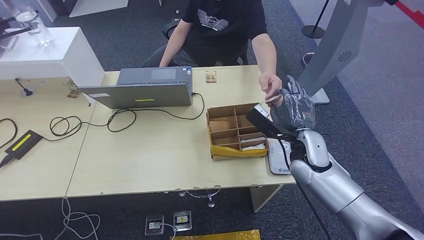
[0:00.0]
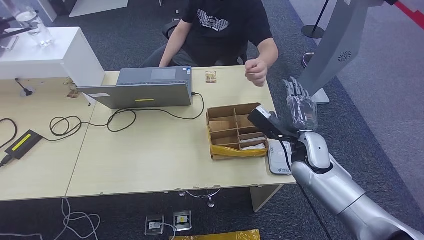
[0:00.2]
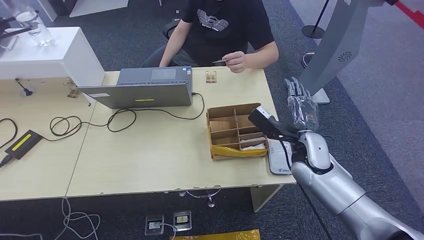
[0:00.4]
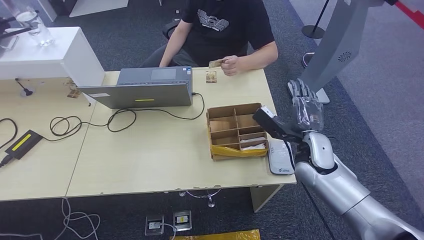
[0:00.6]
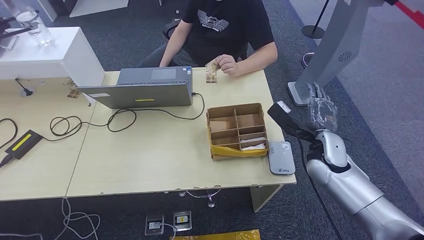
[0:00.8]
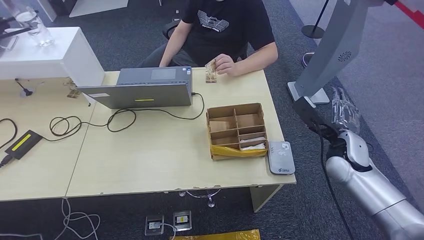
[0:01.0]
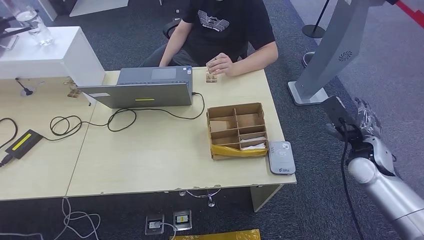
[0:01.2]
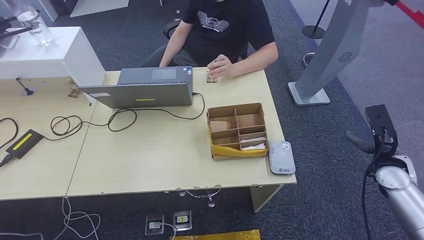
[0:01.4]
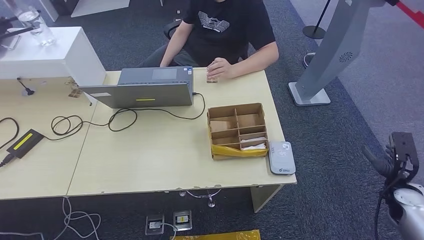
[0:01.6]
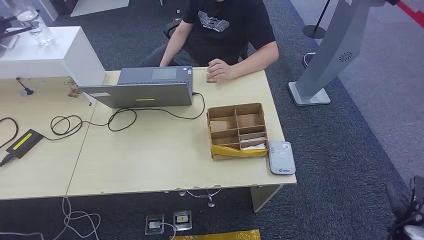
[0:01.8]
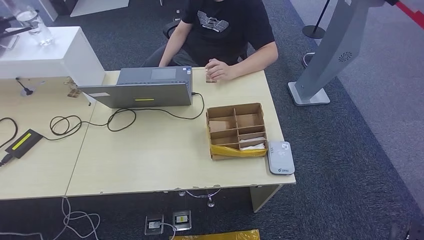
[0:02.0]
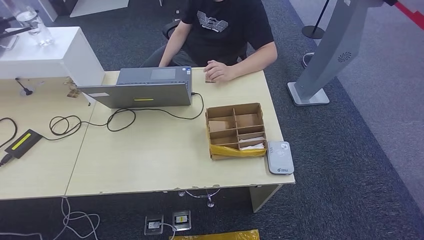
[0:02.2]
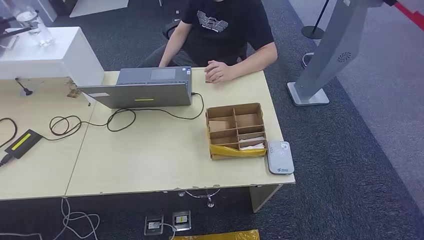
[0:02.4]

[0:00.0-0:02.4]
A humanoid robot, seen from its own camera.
Step, 0:00.0 to 0:02.2: Hand the room key to the person.
0:00.0 to 0:01.2: The right hand moves to the right, about 15 cm.
0:01.2 to 0:02.4: The right hand goes roughly 40 cm downward and backward.

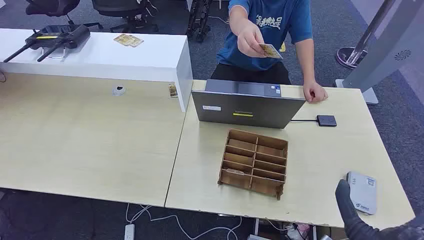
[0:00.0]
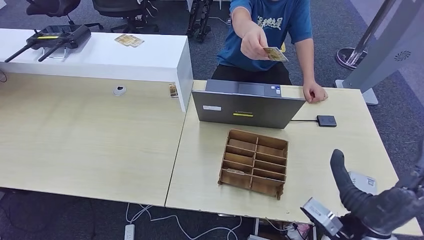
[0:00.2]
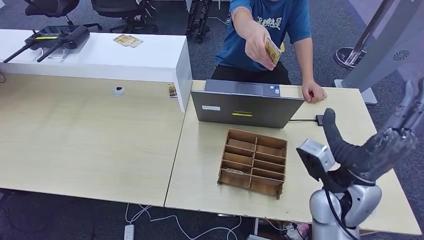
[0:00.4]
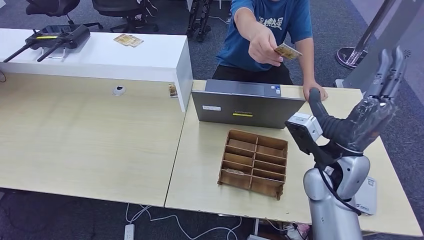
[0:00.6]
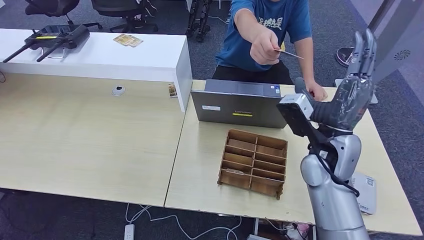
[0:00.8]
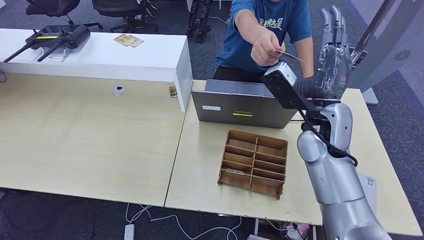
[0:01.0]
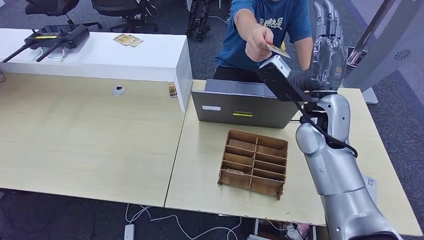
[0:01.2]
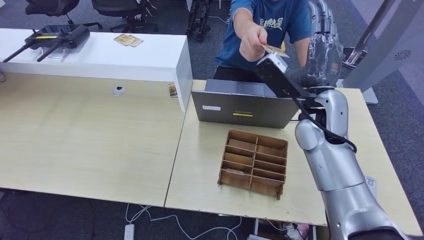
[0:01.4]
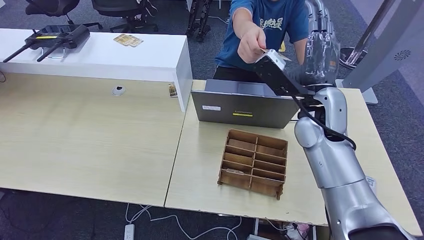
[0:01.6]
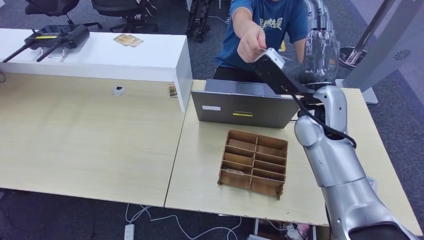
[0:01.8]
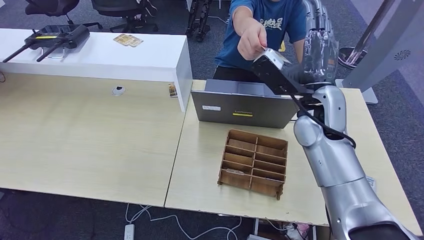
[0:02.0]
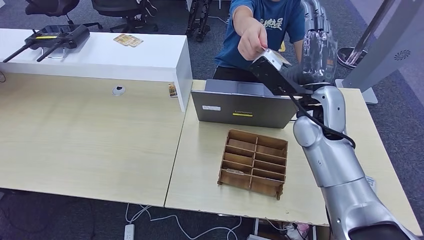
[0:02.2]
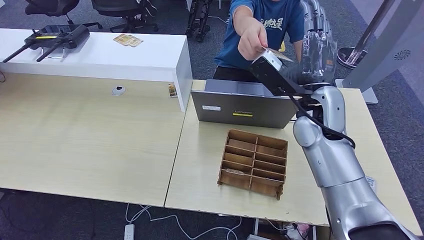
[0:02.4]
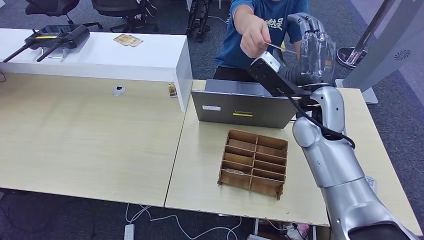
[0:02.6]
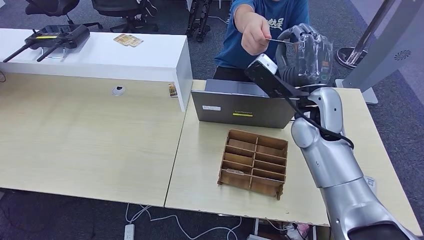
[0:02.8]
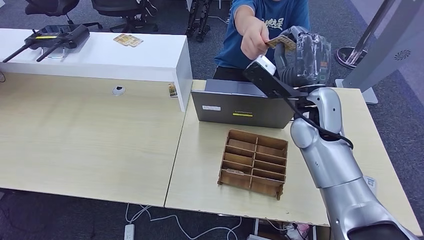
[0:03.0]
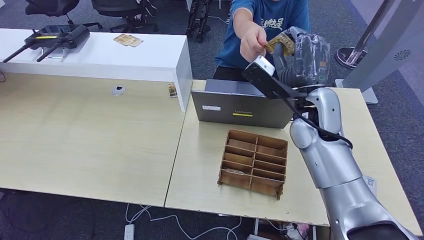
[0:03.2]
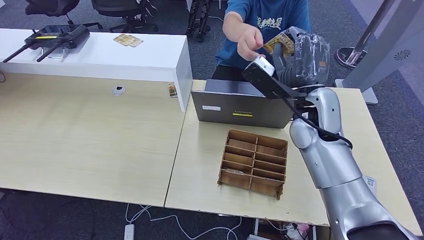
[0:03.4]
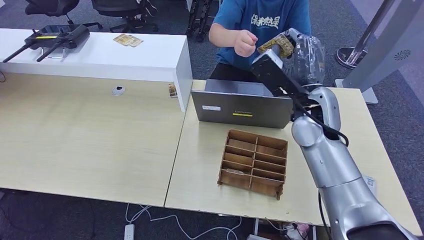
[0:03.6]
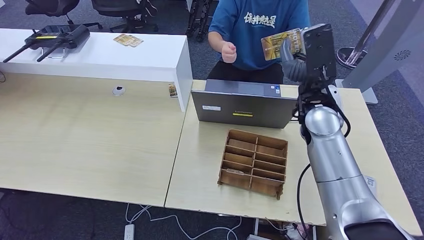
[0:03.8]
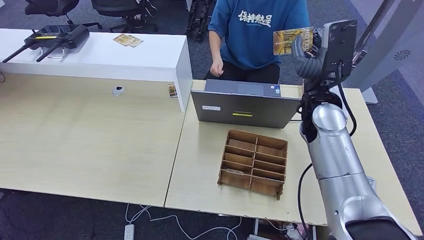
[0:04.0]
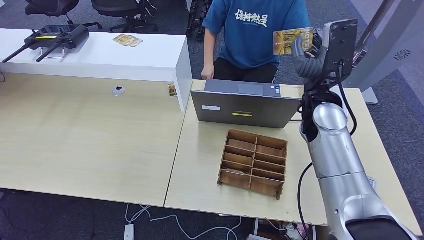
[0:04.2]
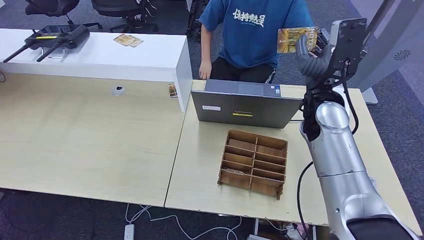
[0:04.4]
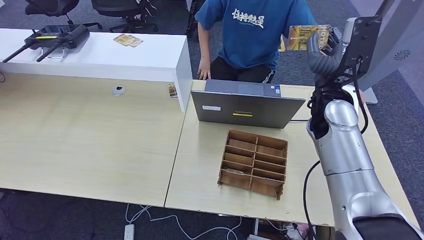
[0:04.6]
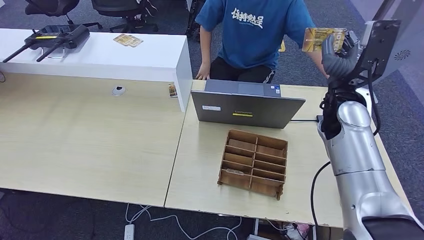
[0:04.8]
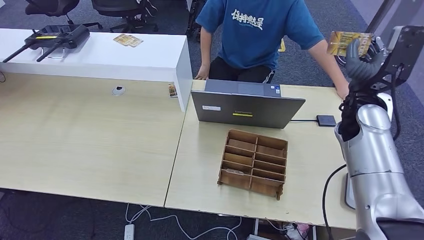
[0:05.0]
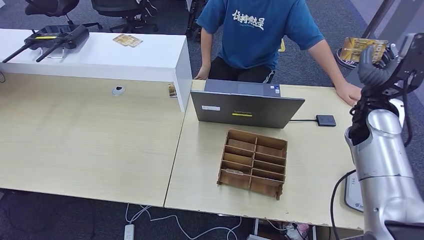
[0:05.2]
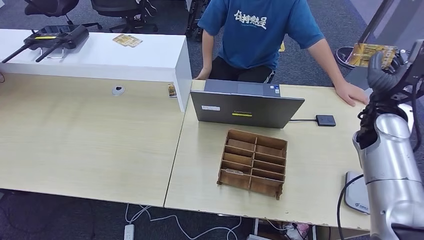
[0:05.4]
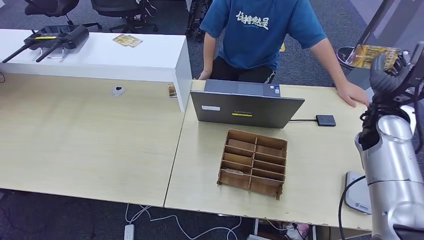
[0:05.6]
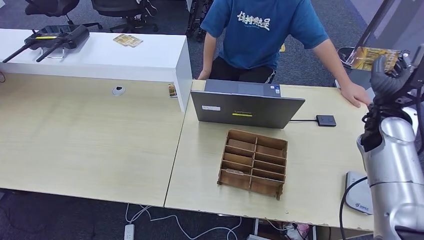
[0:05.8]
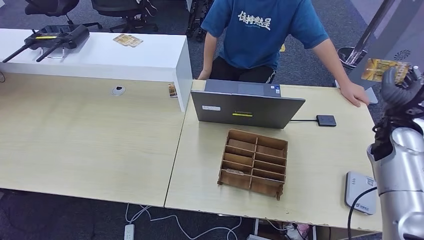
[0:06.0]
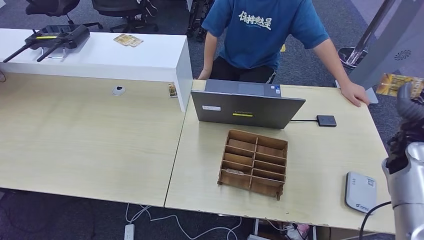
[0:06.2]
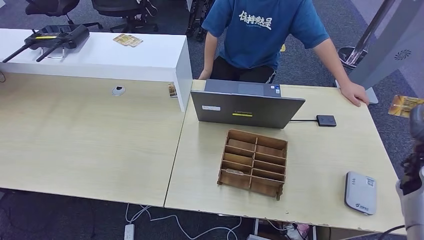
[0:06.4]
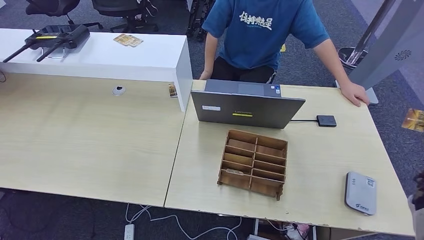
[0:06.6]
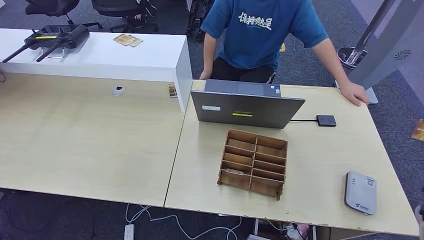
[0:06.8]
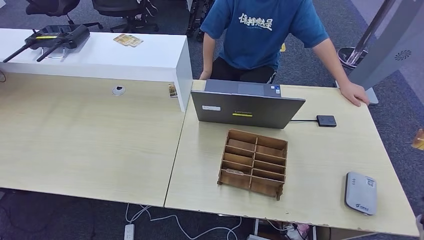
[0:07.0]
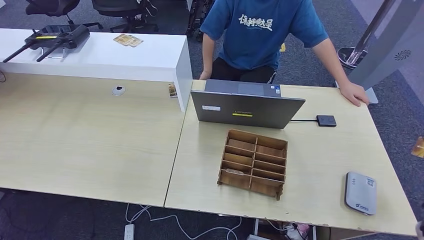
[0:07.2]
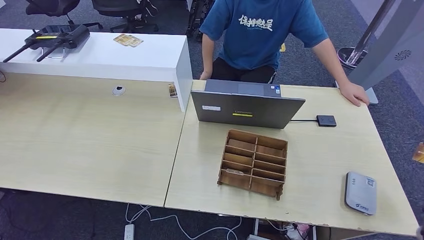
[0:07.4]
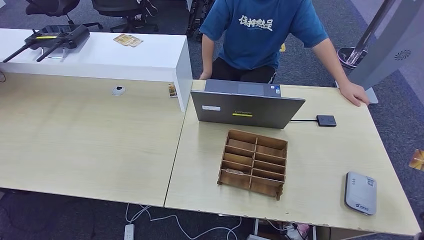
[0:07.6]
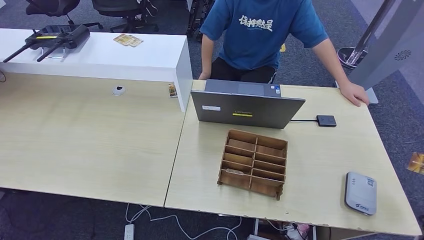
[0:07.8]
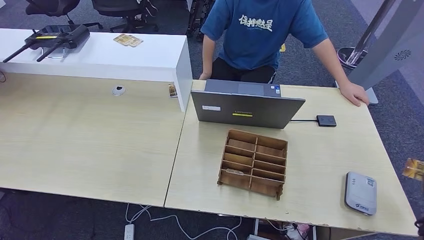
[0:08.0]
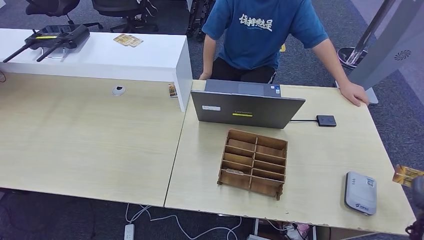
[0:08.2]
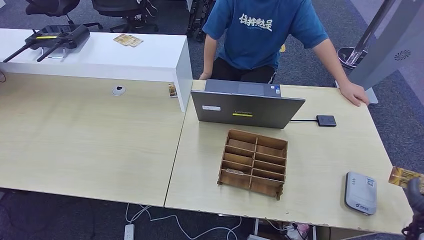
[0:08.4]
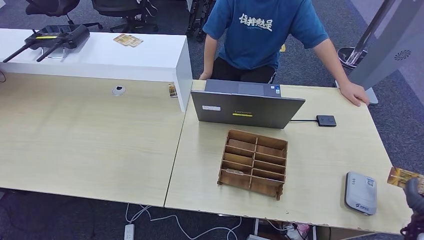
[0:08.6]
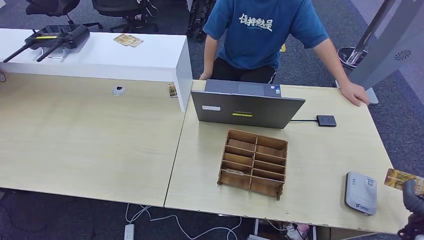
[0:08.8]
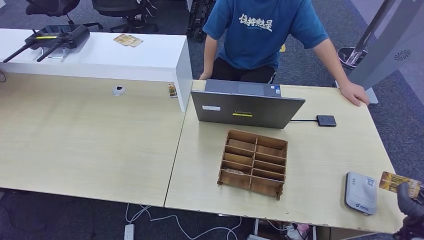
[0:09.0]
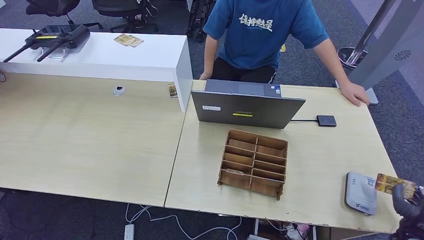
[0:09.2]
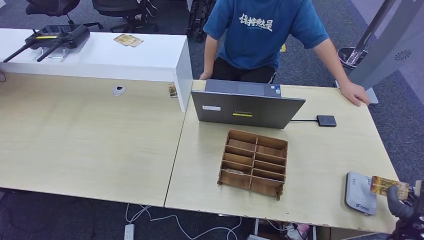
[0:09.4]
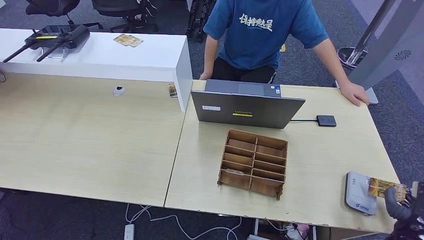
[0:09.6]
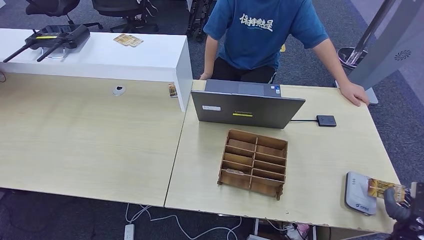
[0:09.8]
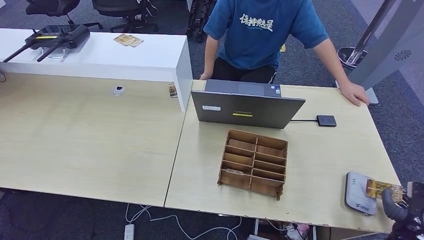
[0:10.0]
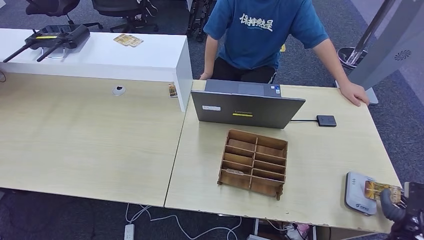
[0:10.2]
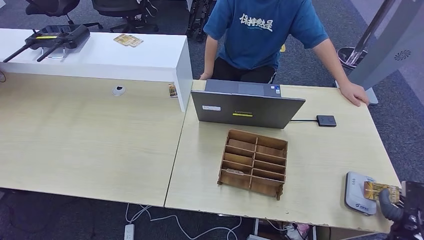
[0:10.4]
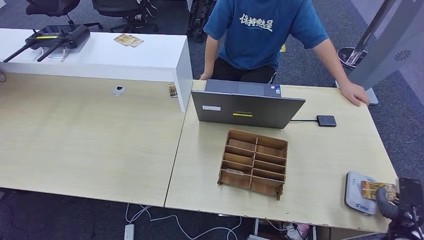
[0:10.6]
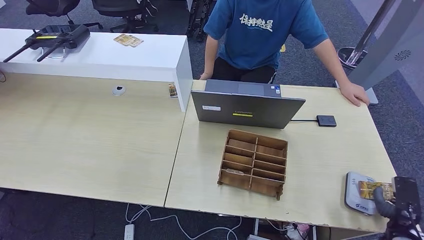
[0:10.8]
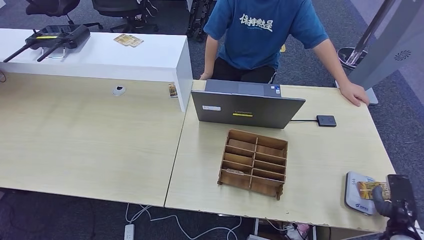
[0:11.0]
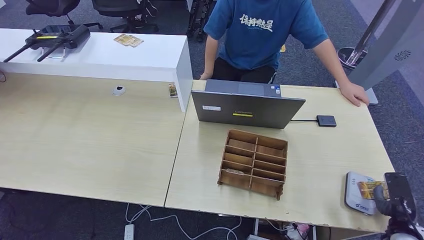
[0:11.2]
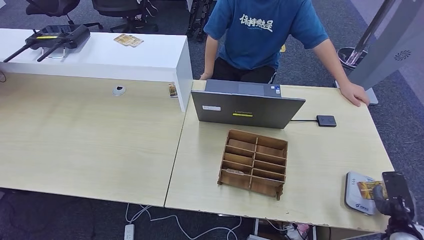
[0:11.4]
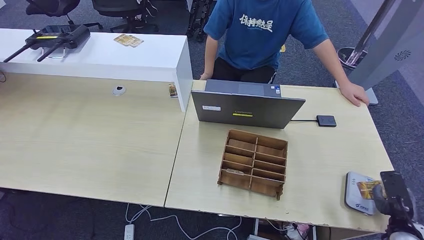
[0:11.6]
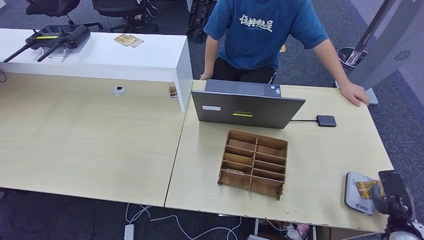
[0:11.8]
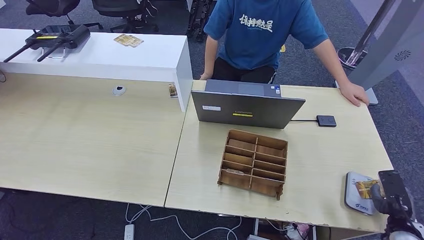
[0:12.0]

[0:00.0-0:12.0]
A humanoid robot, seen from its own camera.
Step, 0:00.0 to 0:03.2: Take the ID card from the person's hand.
Step, 0:03.4 to 0:11.2: Place the ID card on the card reader.
0:01.6 to 0:03.0: The two hands keep their place.
0:04.4 to 0:06.0: The right hand shifts approximately 20 cm to the right.
0:06.0 to 0:07.6: The right hand goes approximately 25 cm to the right, backward and downward.
0:07.6 to 0:09.0: The right hand travels downward by roughly 5 cm.
0:09.0 to 0:10.4: The hands make only small movements.
0:10.4 to 0:12.0: The hands make only small movements.

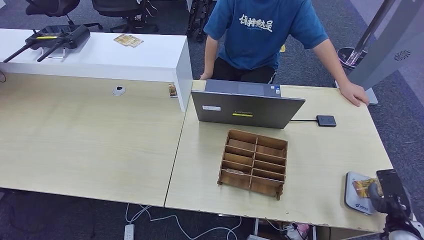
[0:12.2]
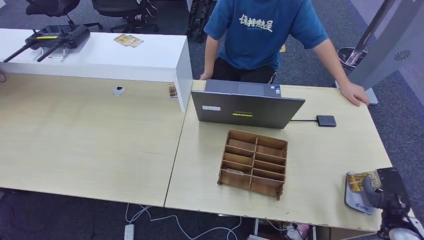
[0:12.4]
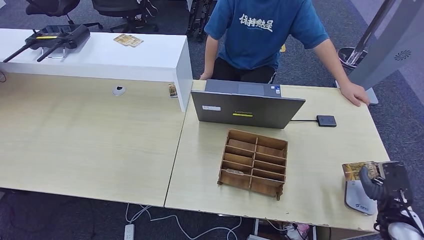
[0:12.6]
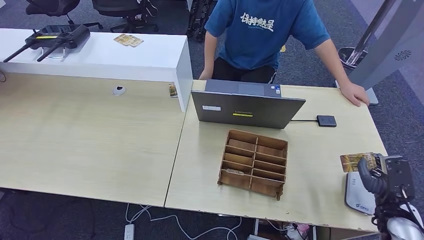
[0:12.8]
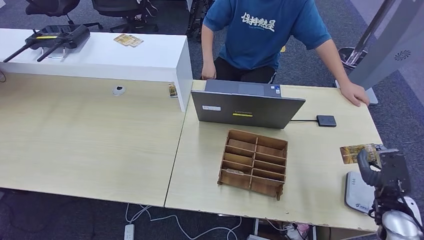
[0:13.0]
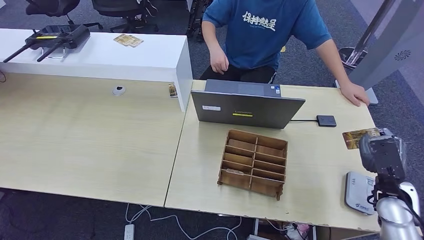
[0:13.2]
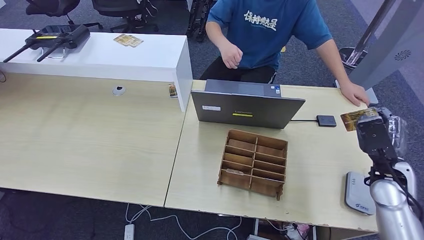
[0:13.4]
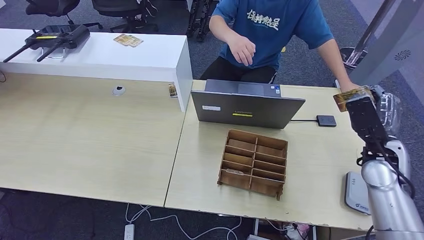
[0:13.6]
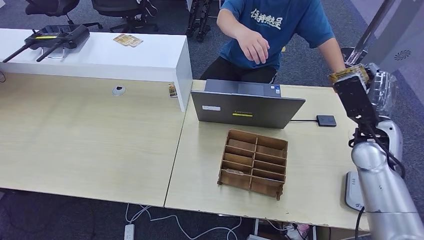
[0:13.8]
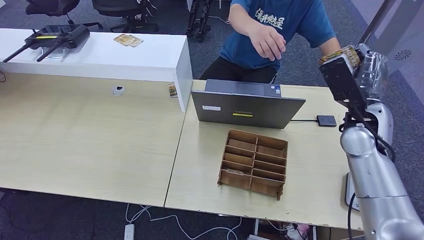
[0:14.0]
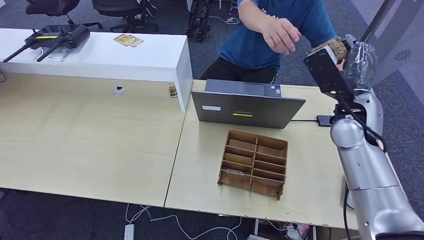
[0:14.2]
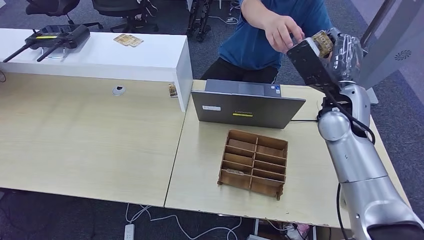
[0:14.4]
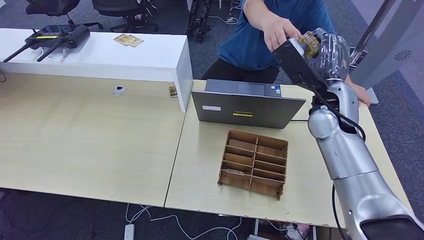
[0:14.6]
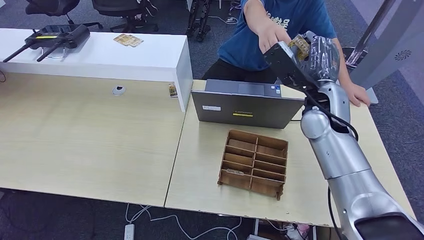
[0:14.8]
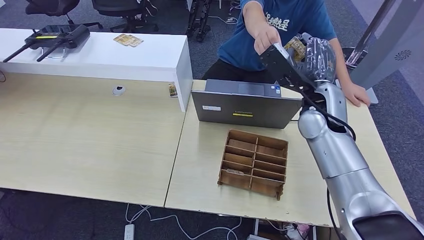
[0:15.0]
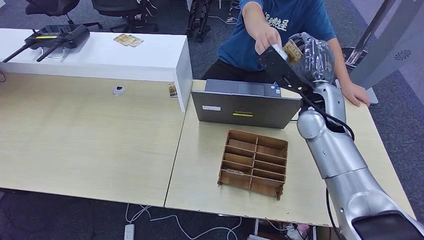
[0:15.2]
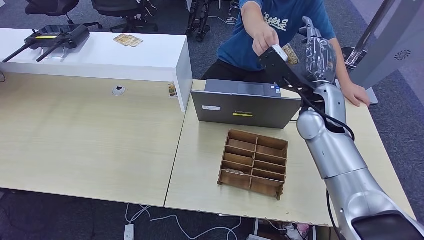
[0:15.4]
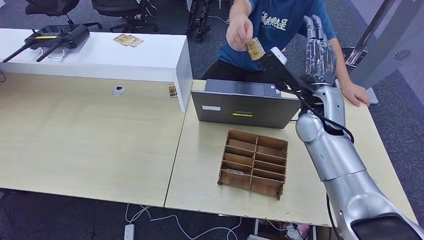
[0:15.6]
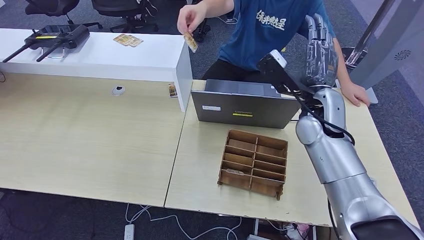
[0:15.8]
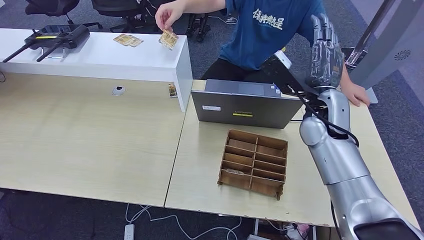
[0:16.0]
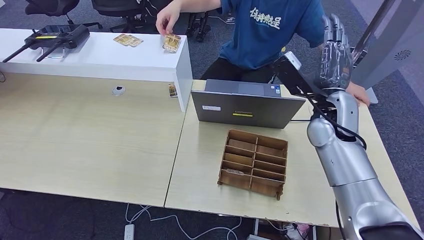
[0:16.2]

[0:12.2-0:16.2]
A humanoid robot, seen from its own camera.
Step, 0:12.2 to 0:16.0: Hand the ID card to the person.
0:12.2 to 0:13.6: The right hand shifts about 25 cm upward, to the left and forward.
0:13.6 to 0:14.8: The right hand goes some 20 cm to the left and upward.
0:14.8 to 0:16.2: There are only small adjustments of the hands.
